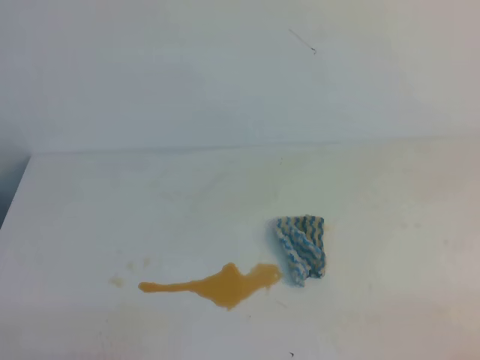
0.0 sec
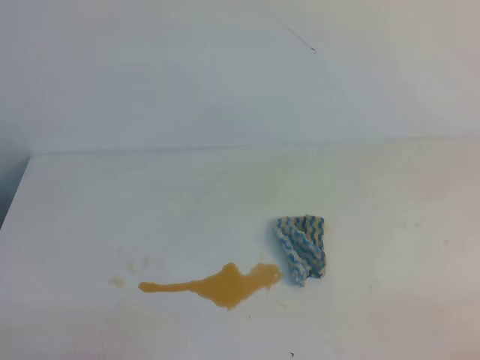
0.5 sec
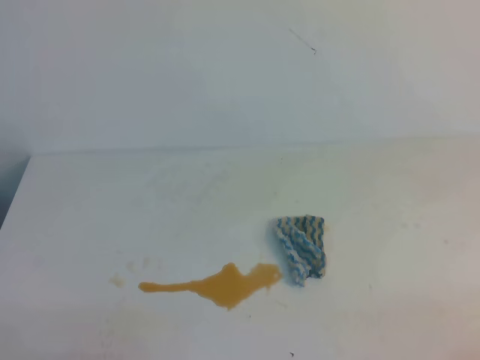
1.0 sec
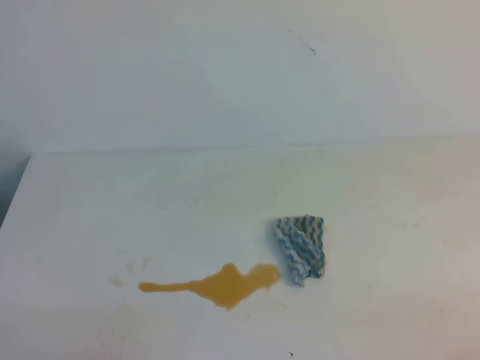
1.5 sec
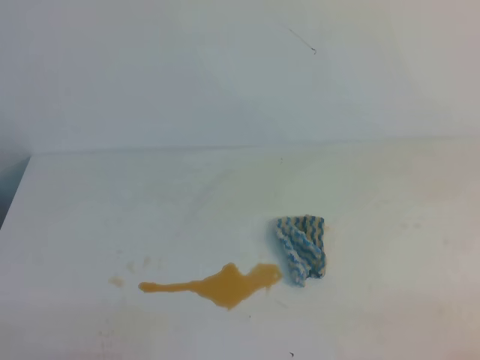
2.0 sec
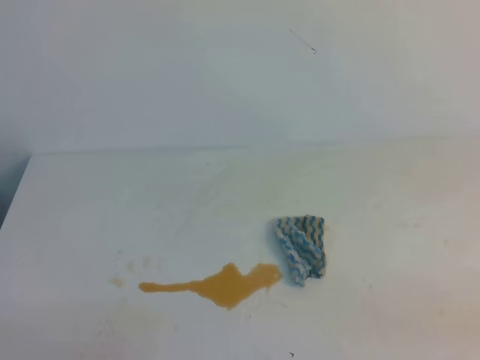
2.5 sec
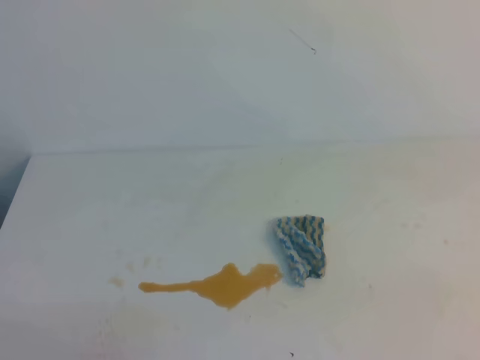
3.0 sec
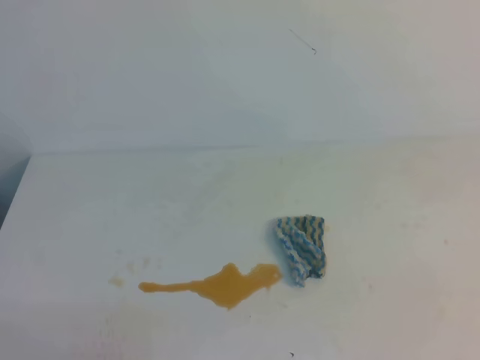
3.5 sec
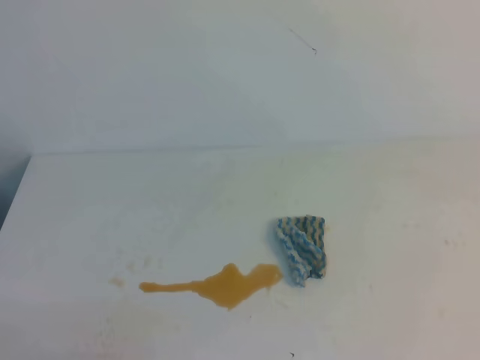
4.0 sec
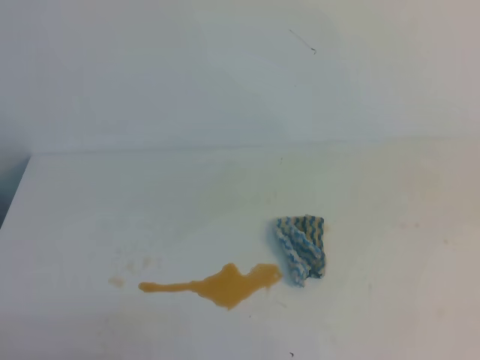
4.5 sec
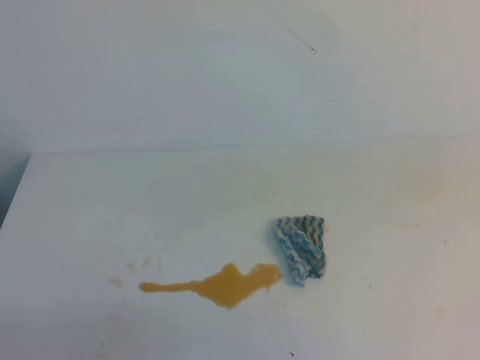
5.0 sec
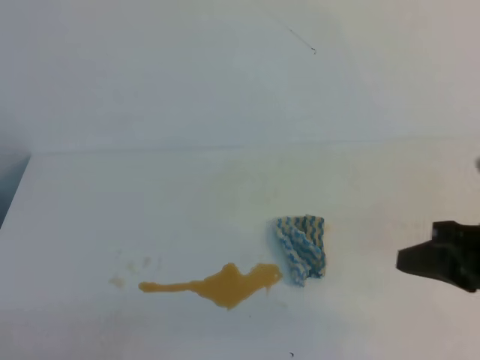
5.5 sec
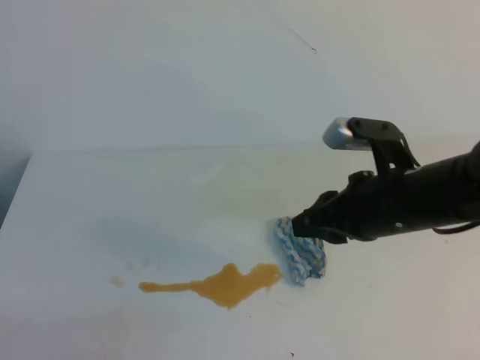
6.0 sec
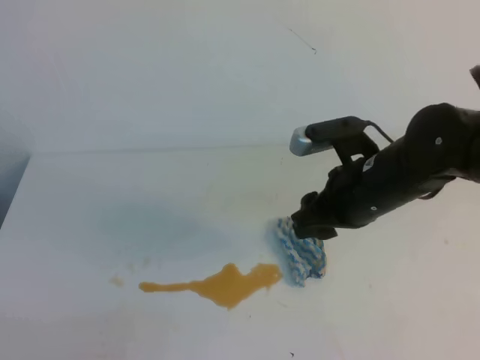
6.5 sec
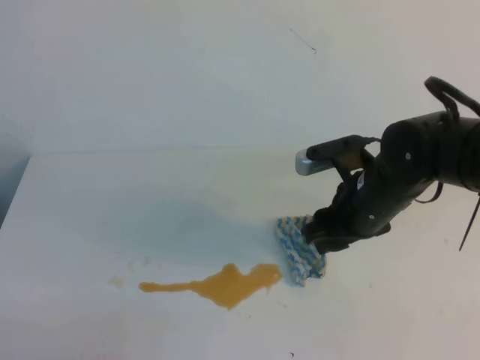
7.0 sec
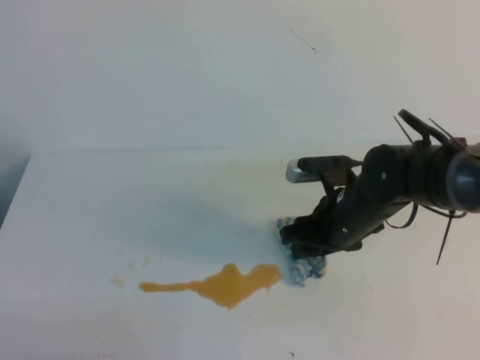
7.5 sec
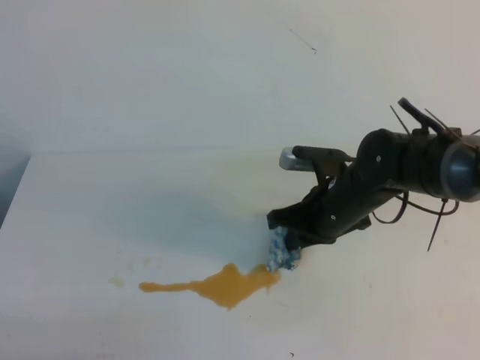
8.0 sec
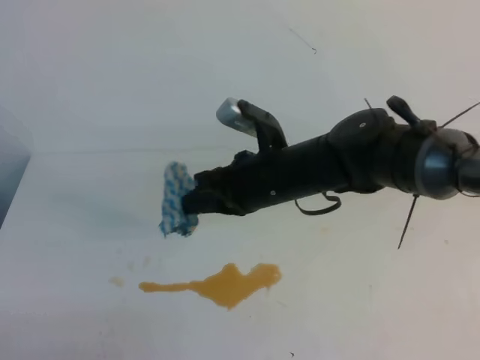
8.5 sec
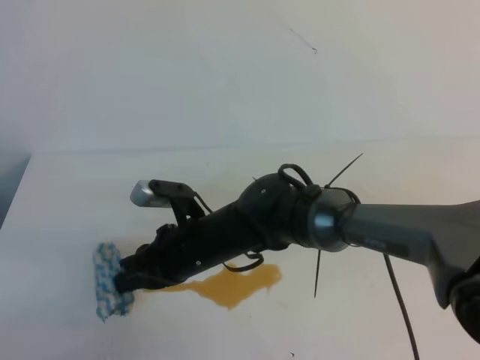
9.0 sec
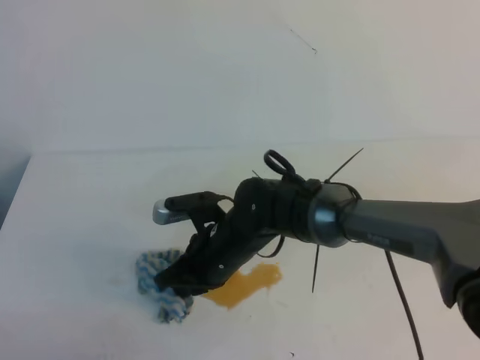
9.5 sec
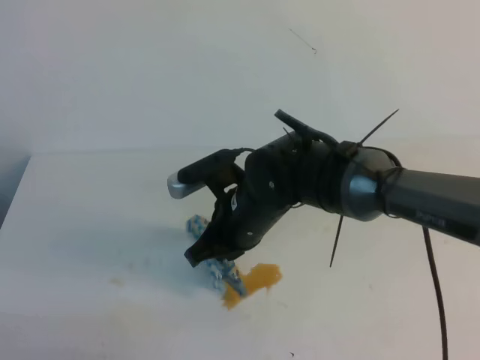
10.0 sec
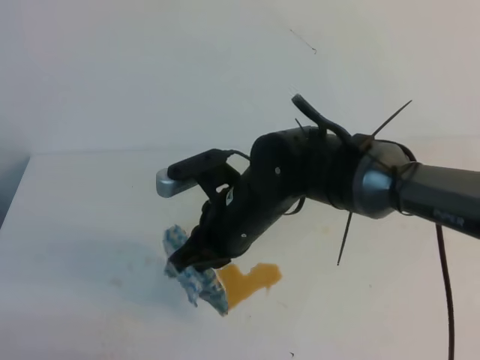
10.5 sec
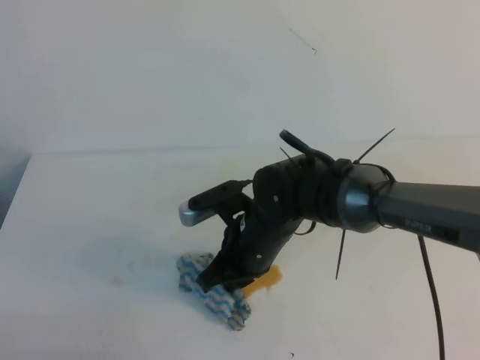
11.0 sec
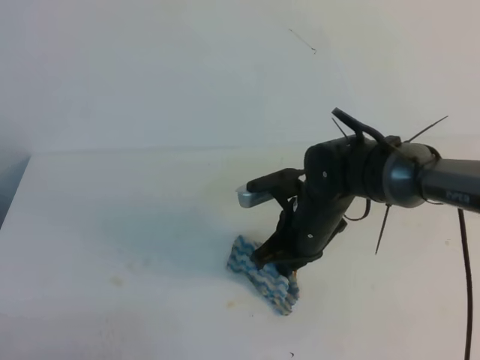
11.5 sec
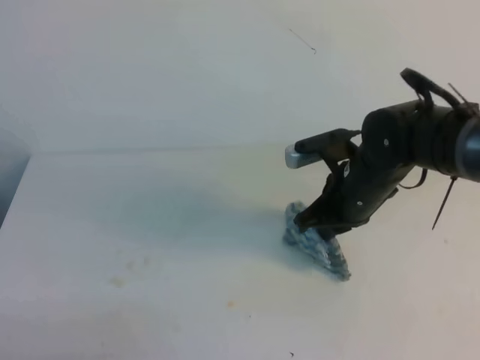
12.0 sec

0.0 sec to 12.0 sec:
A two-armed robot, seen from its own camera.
0.0 sec to 2.0 sec: Neither gripper changes place.
4.0 sec to 6.0 sec: The right gripper moves forward and to the left, approximately 30 cm, and opens its fingers.
6.0 sec to 8.0 sec: The right gripper shifts about 10 cm forward, downward and to the left, and closes.
8.0 sec to 10.0 sec: The right gripper is displaced to the left by about 10 cm.
10.0 sec to 12.0 sec: The right gripper travels to the right by approximately 15 cm.

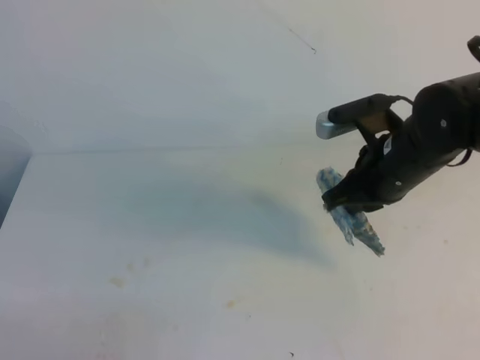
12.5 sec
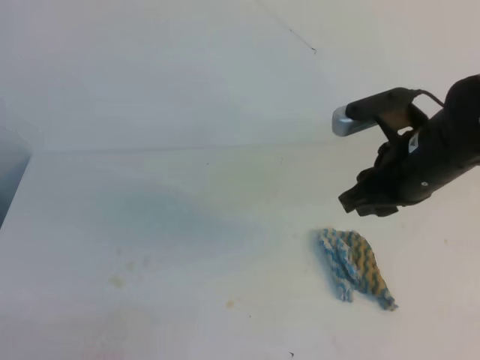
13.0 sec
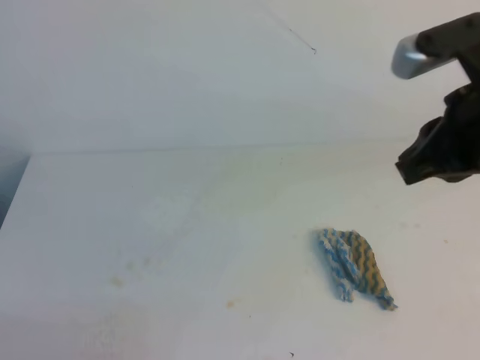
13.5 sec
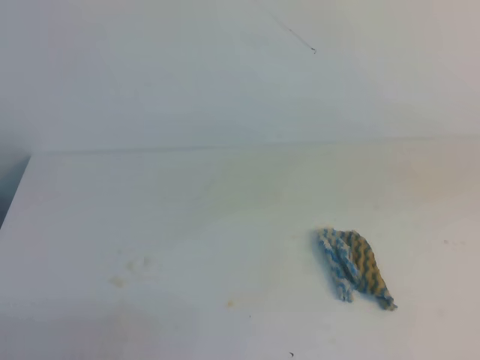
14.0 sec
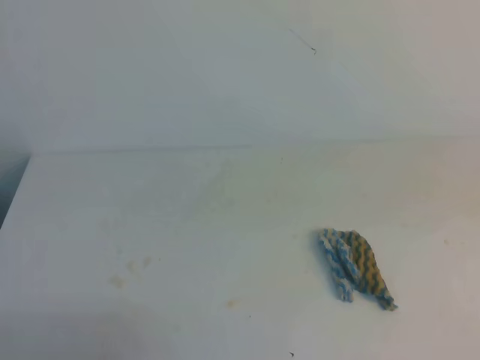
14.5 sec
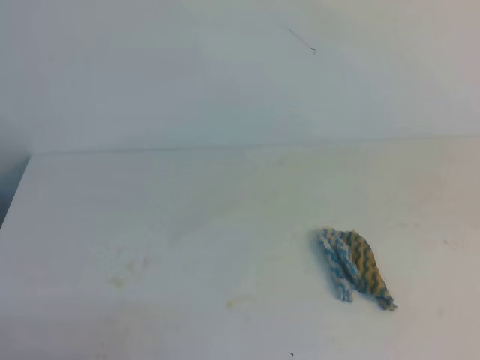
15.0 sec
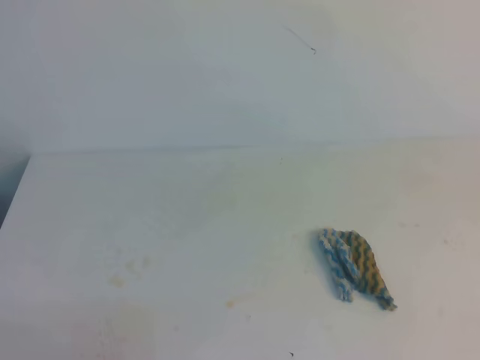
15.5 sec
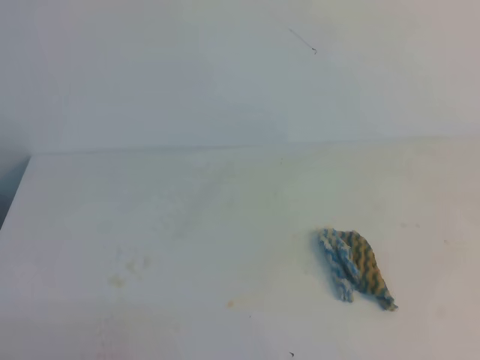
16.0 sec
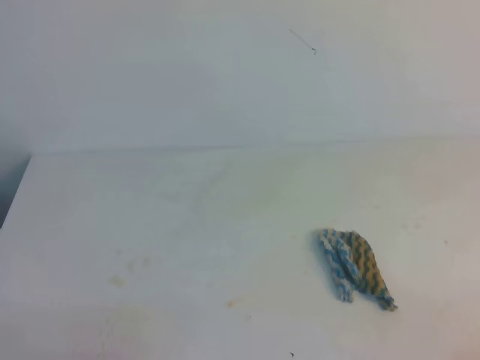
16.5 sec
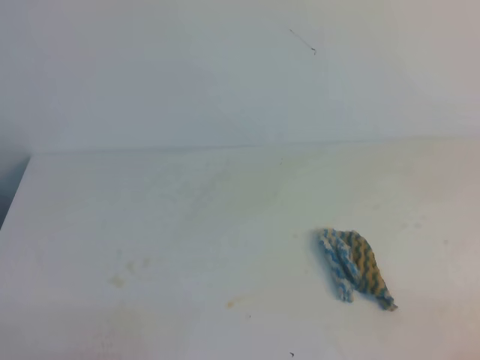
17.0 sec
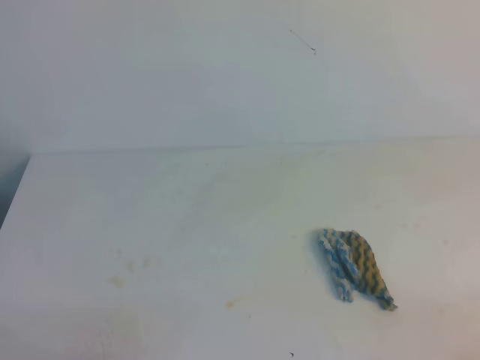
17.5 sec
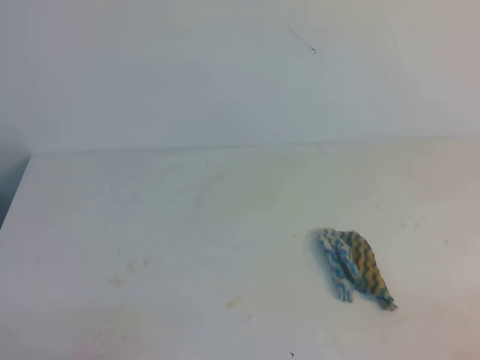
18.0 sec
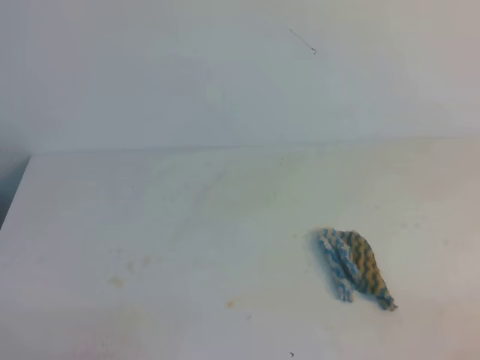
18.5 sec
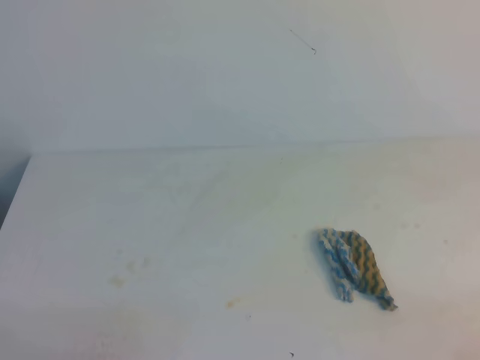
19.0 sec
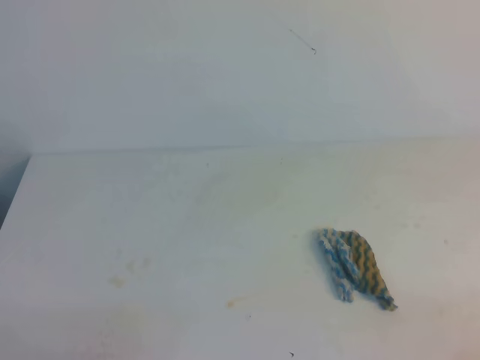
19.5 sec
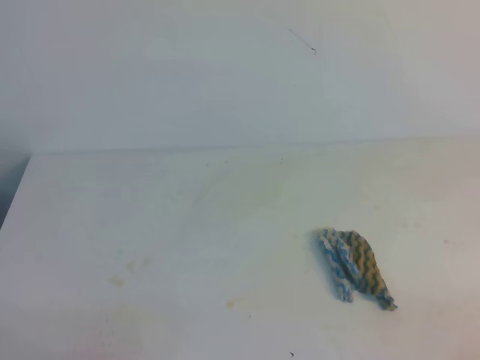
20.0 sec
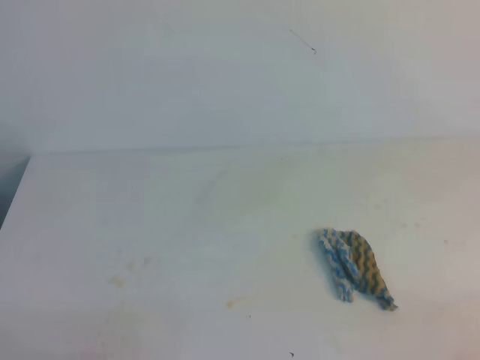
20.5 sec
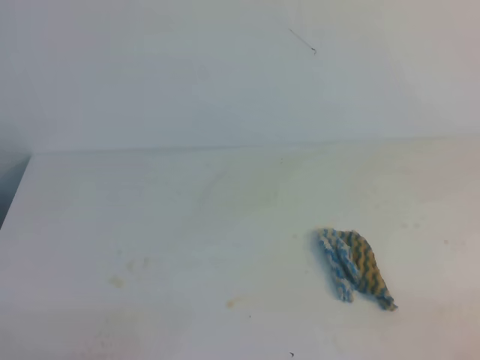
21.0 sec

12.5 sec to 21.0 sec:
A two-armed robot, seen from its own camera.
12.5 sec to 14.5 sec: The right gripper is displaced backward, upward and to the right by approximately 25 cm, and opens, then closes again.
19.0 sec to 21.0 sec: Neither gripper changes place.

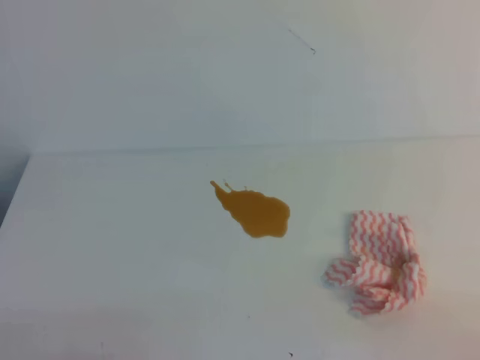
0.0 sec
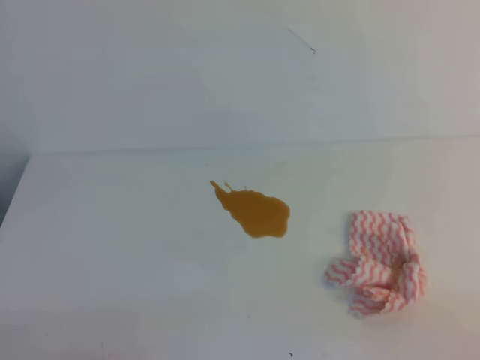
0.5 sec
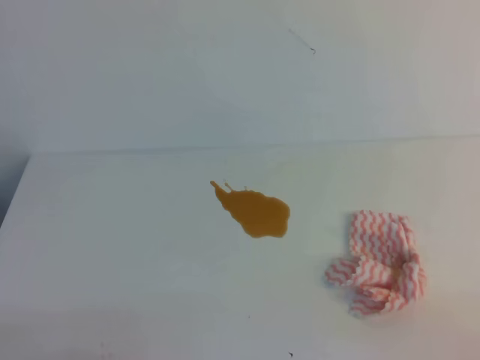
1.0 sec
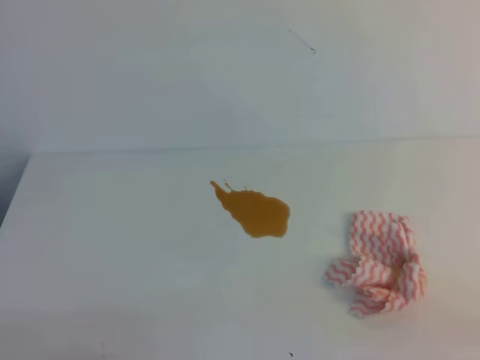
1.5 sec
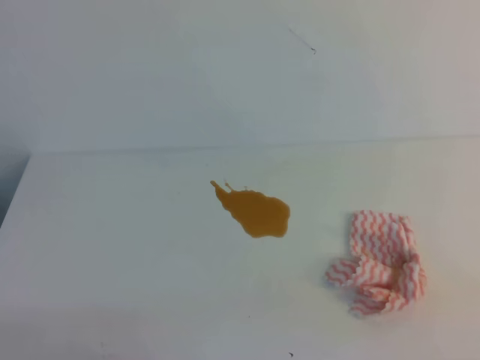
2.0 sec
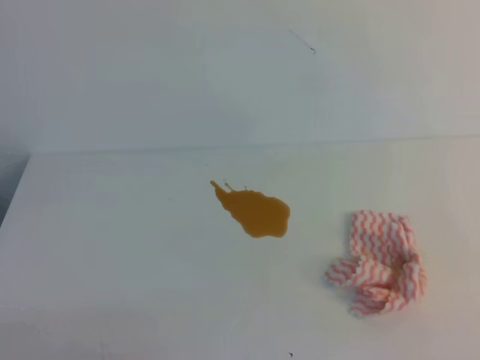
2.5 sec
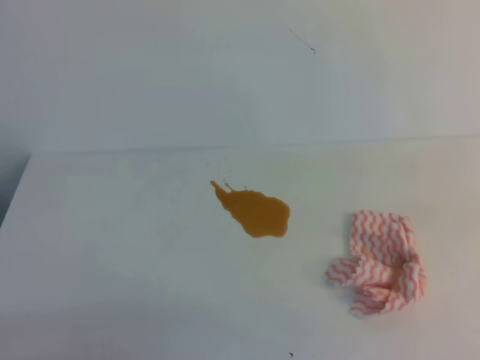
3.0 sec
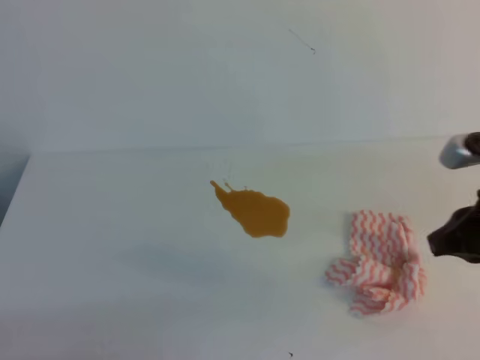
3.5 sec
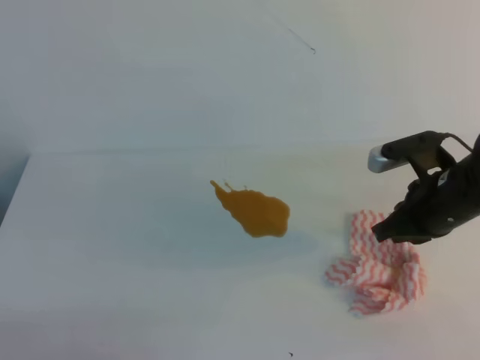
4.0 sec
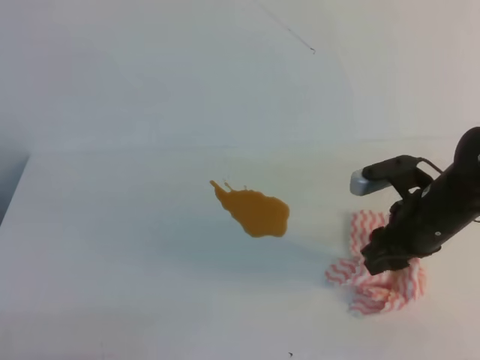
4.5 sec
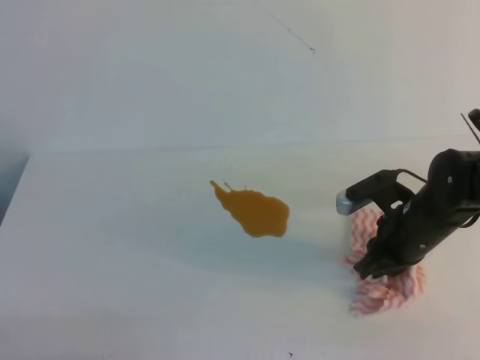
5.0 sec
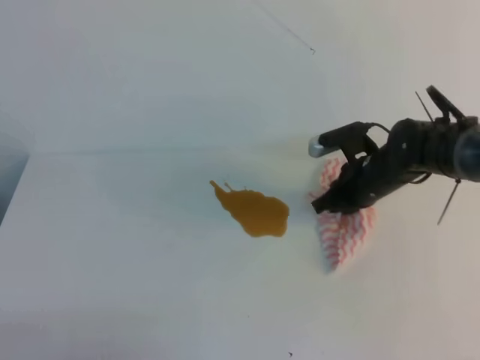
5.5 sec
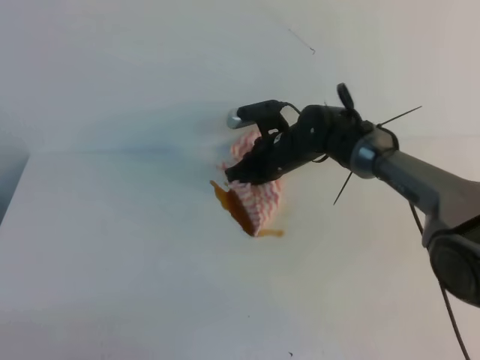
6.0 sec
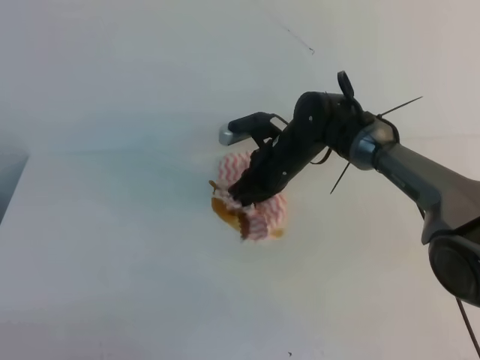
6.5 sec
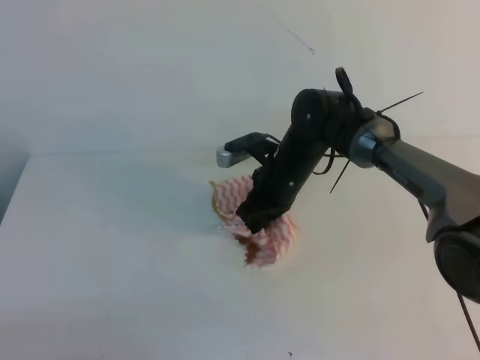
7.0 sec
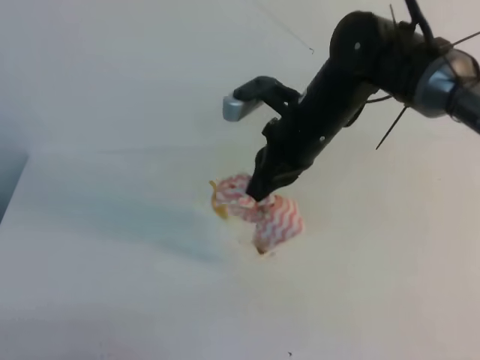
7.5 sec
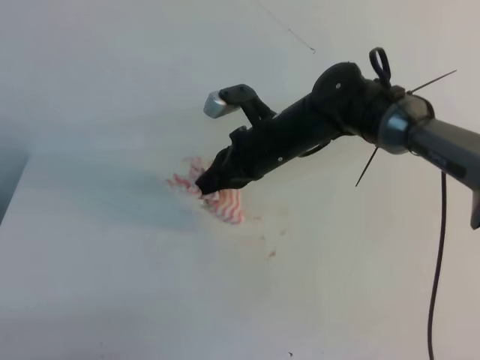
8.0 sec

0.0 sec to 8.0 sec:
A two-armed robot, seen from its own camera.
2.0 sec to 4.0 sec: The right gripper is displaced forward by some 30 cm.
4.0 sec to 6.0 sec: The right gripper is displaced forward, to the left and downward by some 25 cm, and opens, then closes once more.
6.0 sec to 8.0 sec: The right gripper heads upward and backward, covering approximately 10 cm.
